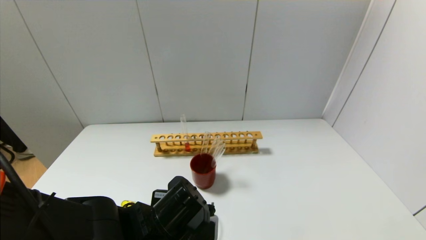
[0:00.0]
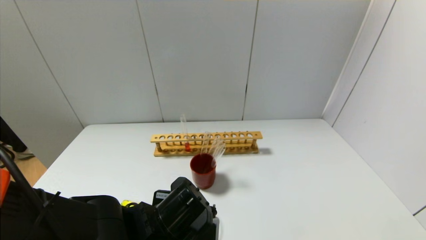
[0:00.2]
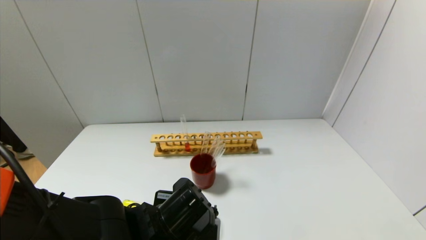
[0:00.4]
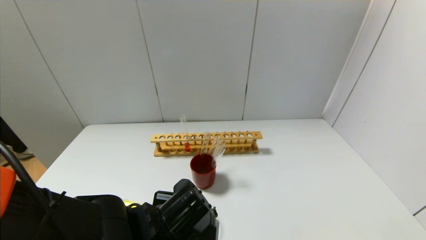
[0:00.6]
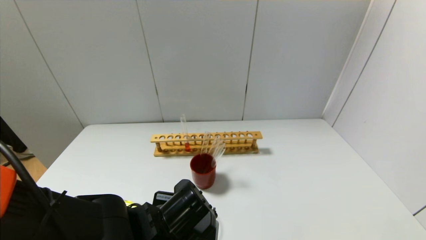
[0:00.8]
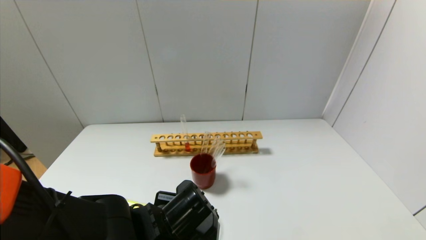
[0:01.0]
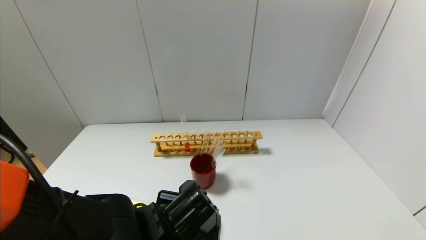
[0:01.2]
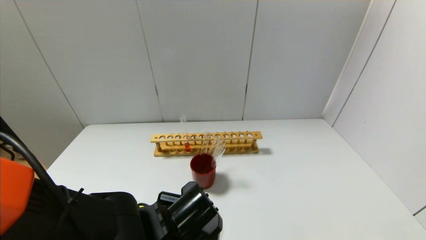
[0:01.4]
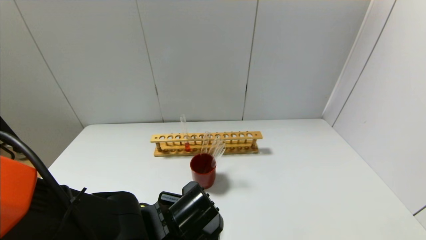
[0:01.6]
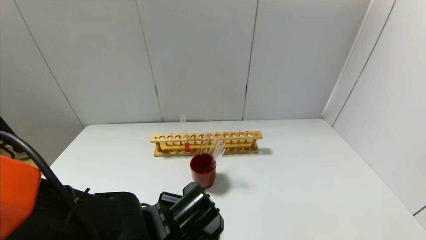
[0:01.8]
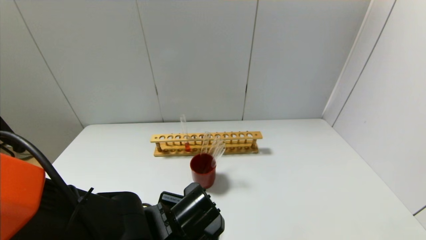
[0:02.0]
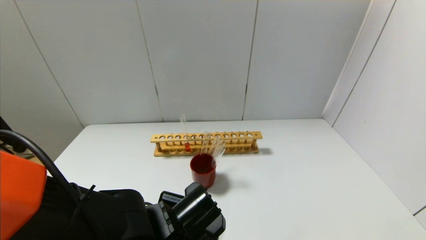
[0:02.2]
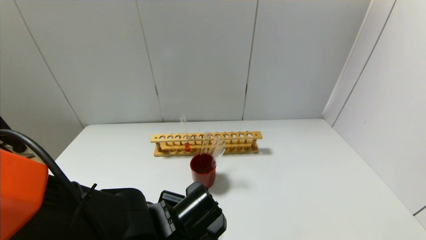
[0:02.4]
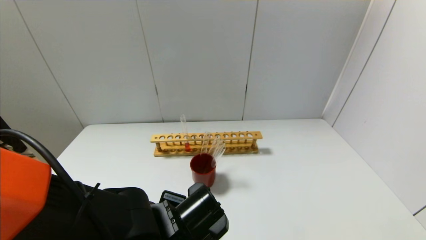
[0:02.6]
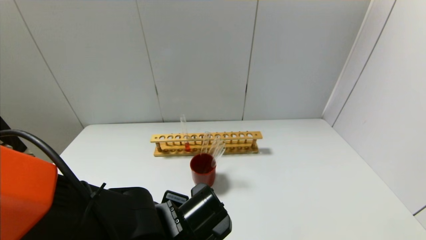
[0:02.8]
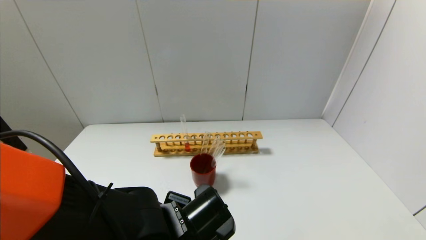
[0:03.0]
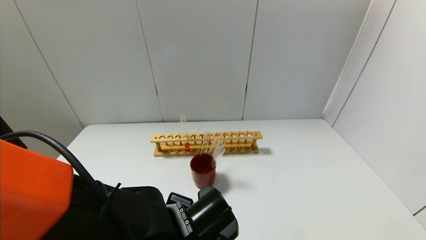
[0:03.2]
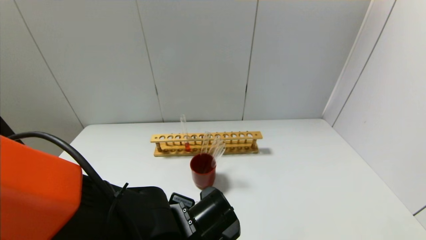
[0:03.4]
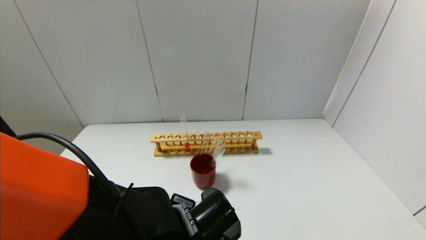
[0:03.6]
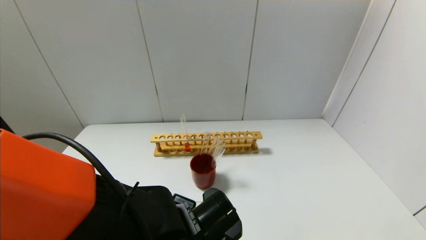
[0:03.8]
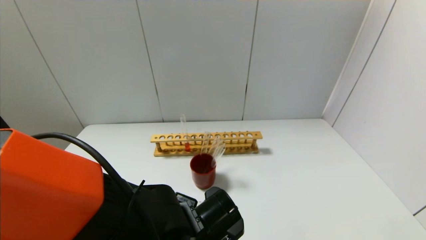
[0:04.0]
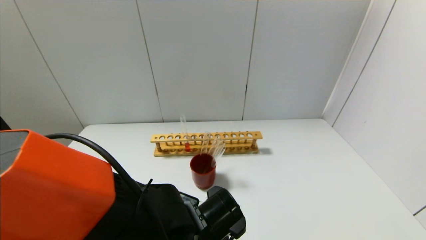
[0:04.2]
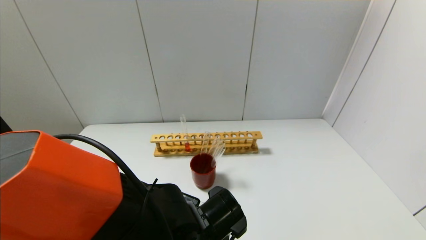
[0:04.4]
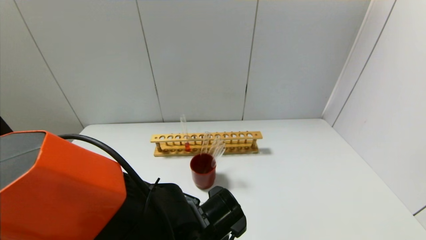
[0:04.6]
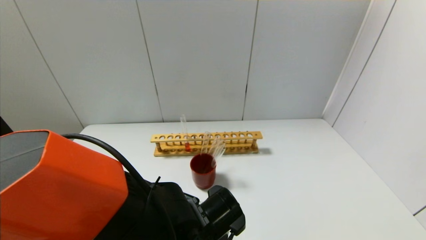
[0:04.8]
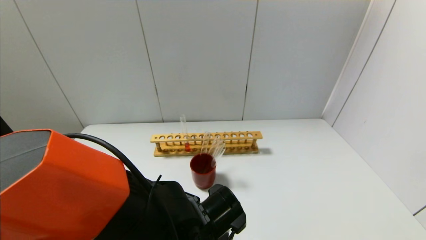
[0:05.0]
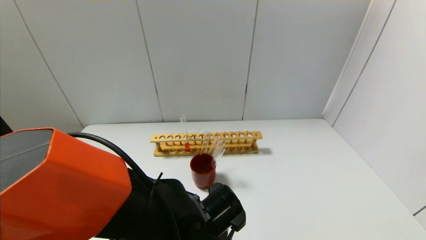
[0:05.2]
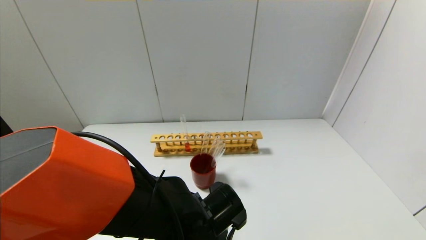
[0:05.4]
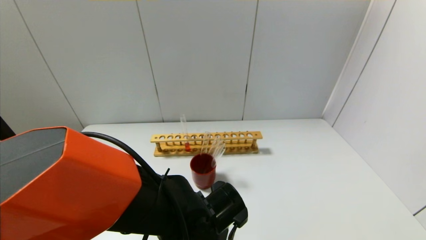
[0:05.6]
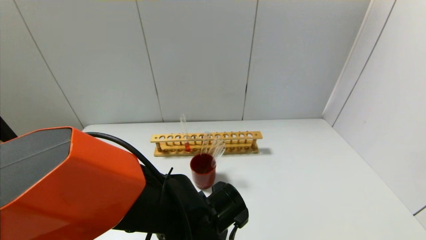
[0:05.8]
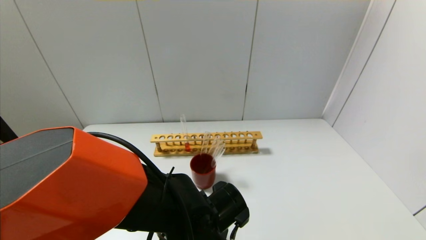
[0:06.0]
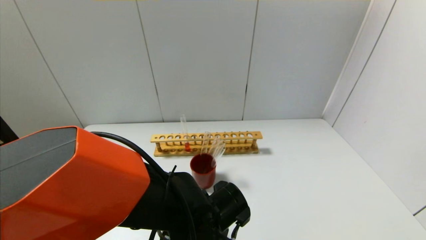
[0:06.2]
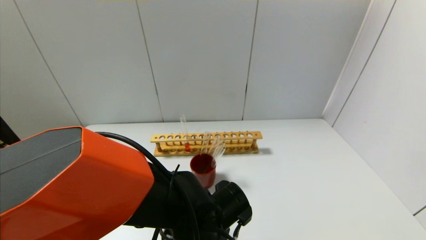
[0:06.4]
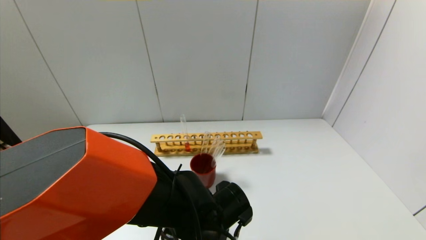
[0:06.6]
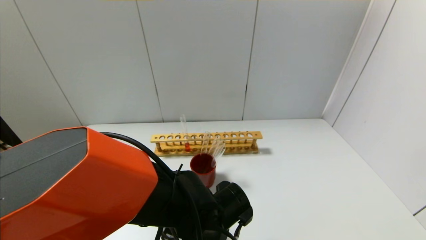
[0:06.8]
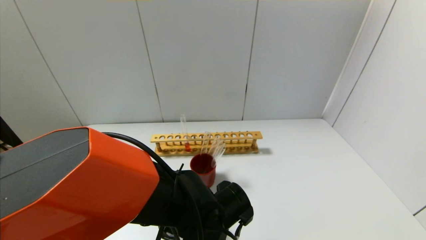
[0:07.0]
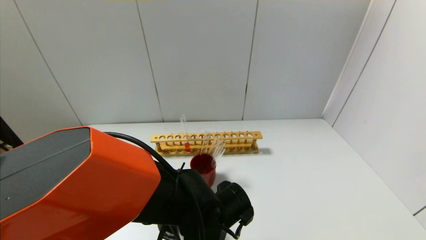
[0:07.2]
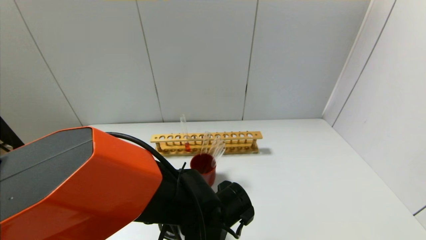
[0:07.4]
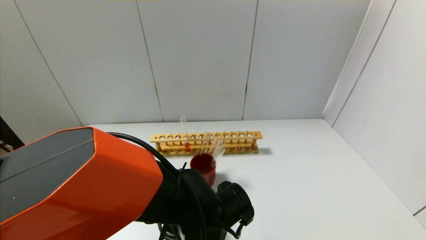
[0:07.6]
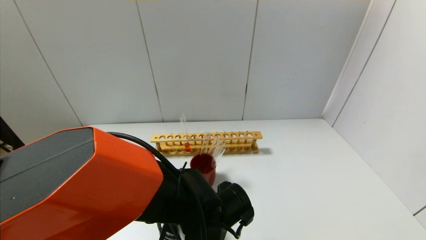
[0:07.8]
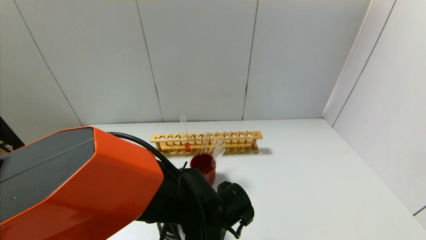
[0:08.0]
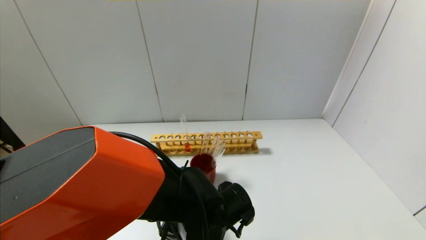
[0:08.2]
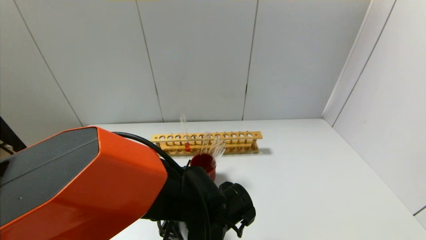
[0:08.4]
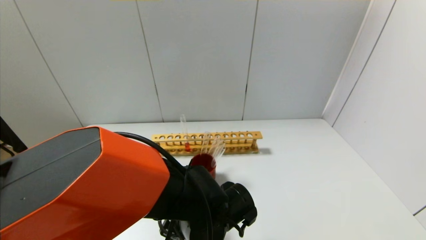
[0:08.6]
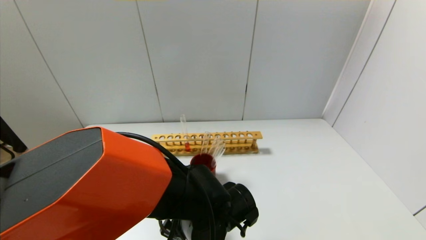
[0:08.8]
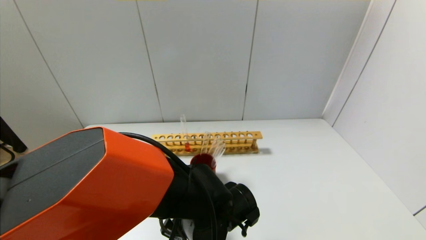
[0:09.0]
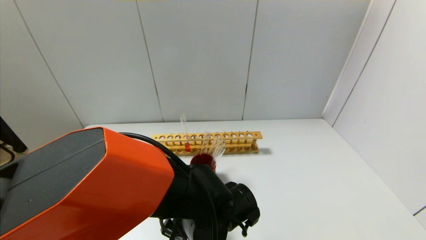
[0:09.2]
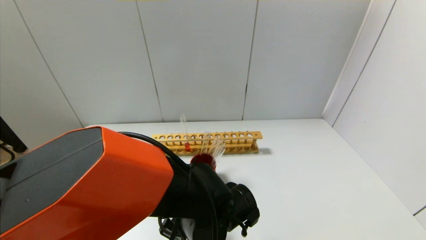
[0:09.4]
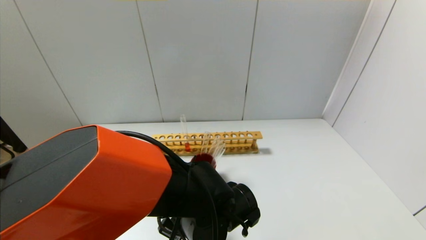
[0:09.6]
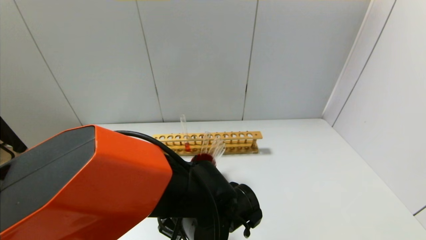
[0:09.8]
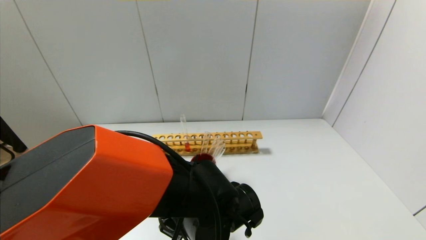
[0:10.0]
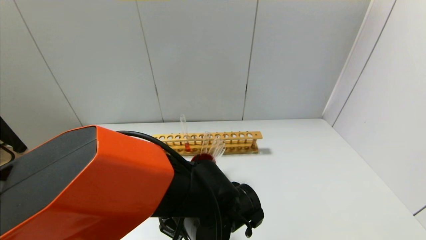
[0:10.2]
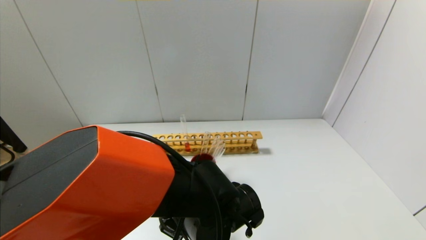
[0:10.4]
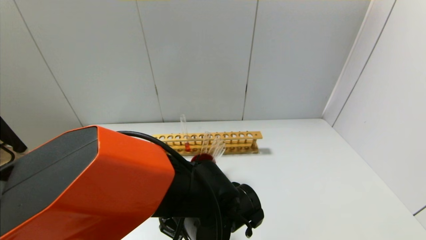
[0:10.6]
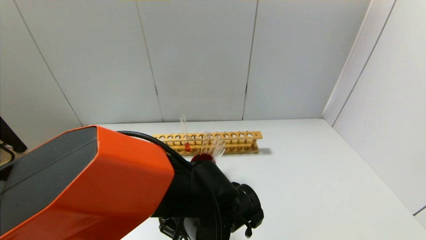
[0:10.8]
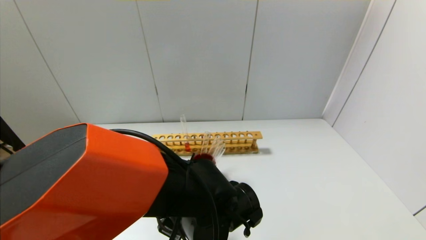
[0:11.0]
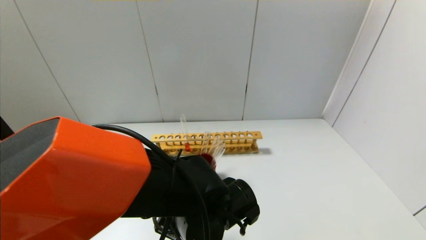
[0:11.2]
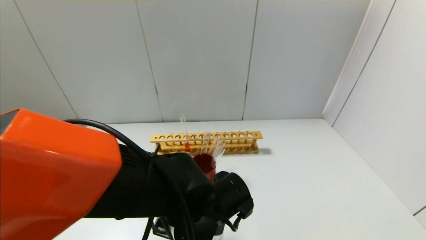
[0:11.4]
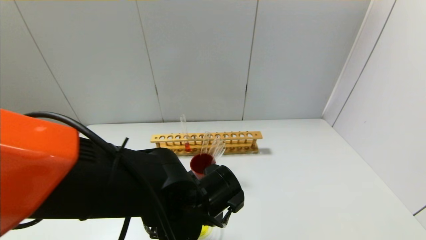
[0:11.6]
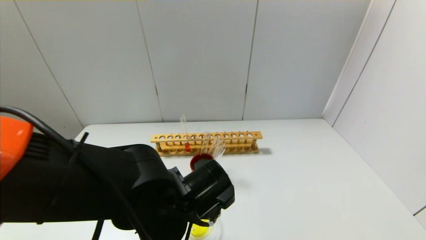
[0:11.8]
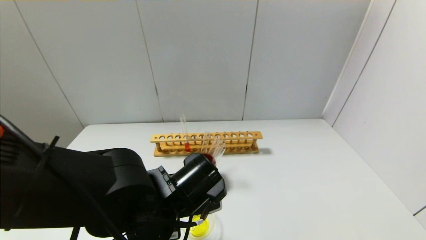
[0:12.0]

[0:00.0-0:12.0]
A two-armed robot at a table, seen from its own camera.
Step, 0:00.0 to 0:11.6: Pour the yellow reagent into the graduated cylinder with the left gripper.
0:00.0 to 0:03.0: The grippers make only small movements.
0:03.0 to 0:07.6: There are only small adjustments of the grippers.
0:07.6 to 0:09.0: The grippers make only small movements.
0:09.0 to 0:10.4: Both grippers stay put.
0:10.4 to 0:12.0: The left gripper travels to the left and upward by some 10 cm.

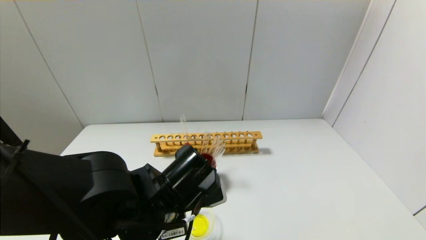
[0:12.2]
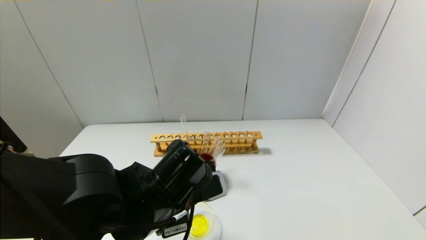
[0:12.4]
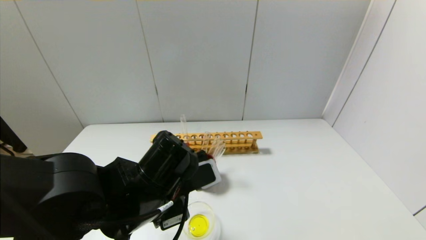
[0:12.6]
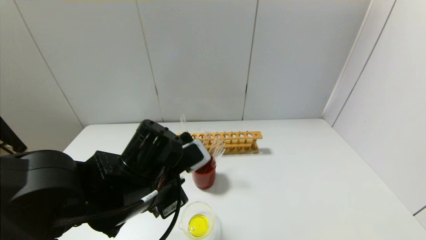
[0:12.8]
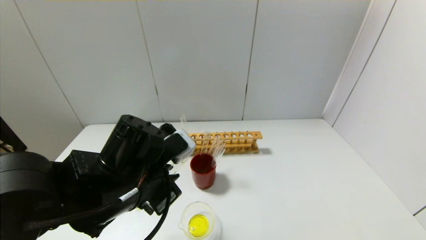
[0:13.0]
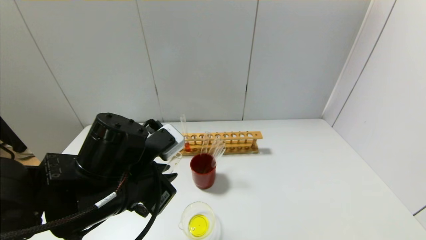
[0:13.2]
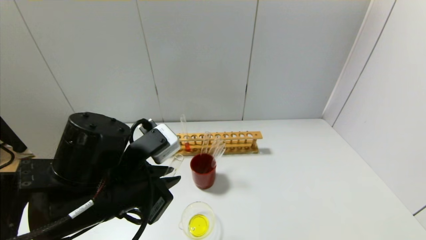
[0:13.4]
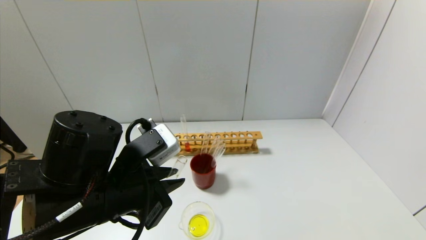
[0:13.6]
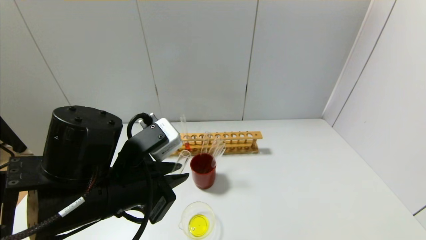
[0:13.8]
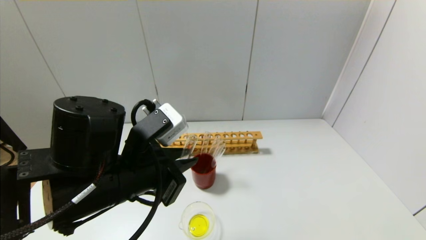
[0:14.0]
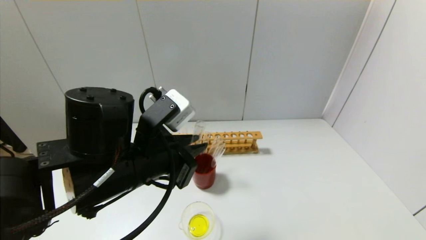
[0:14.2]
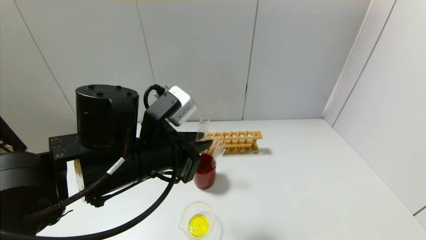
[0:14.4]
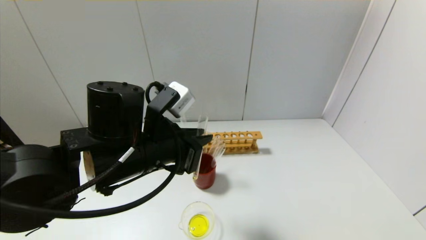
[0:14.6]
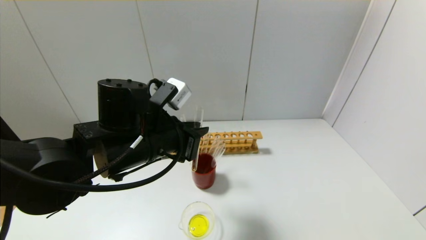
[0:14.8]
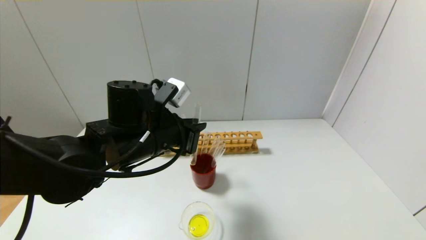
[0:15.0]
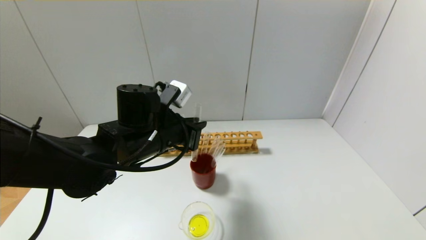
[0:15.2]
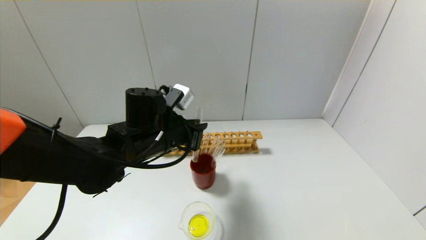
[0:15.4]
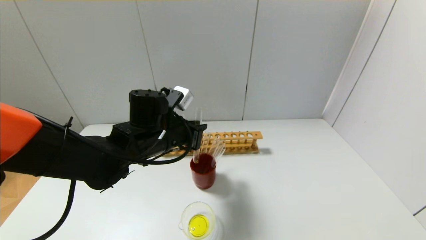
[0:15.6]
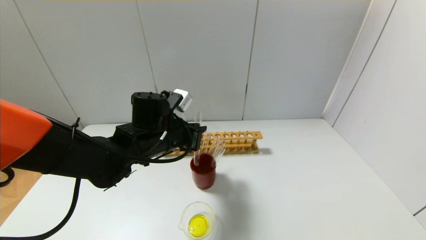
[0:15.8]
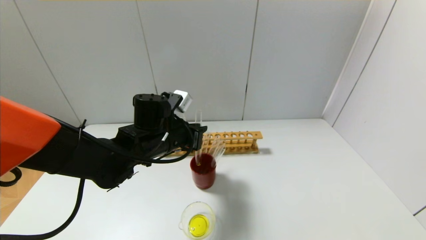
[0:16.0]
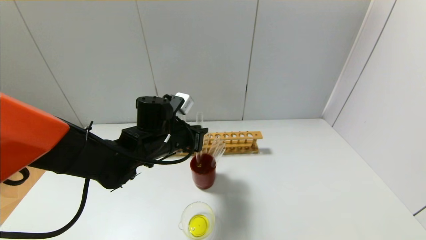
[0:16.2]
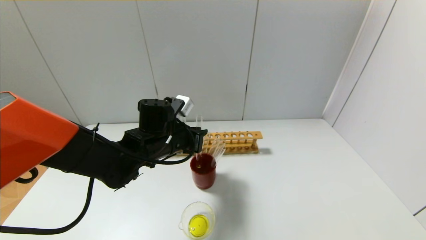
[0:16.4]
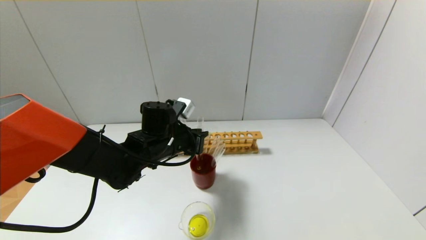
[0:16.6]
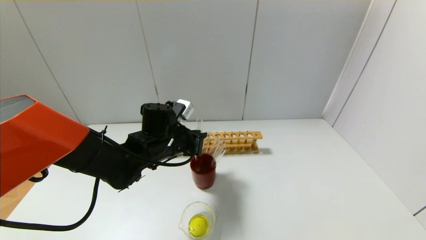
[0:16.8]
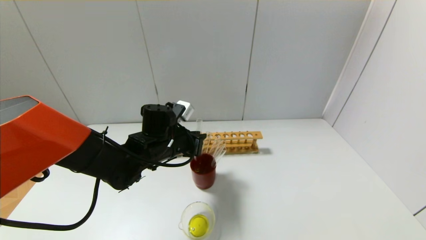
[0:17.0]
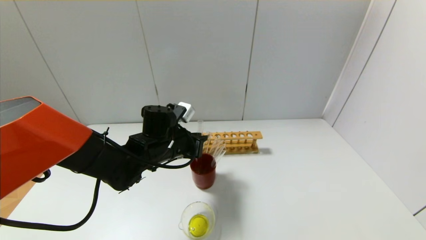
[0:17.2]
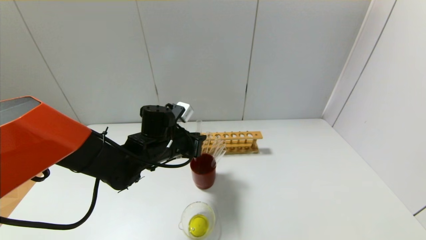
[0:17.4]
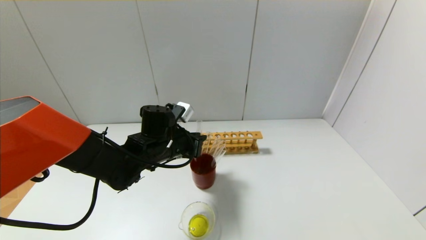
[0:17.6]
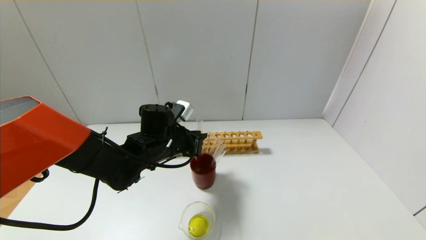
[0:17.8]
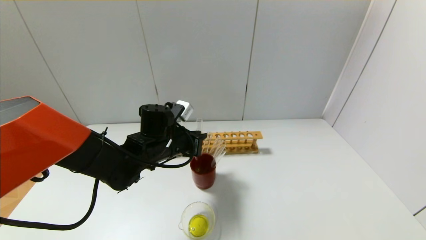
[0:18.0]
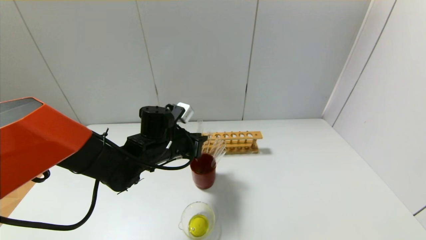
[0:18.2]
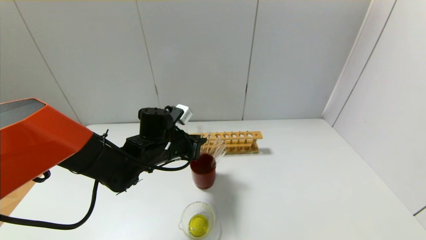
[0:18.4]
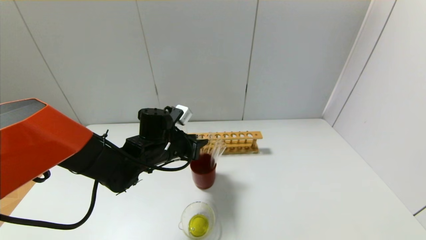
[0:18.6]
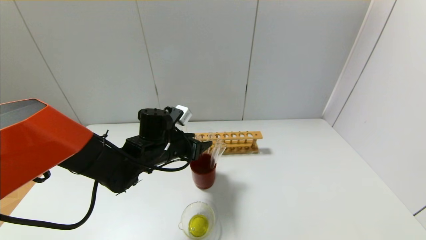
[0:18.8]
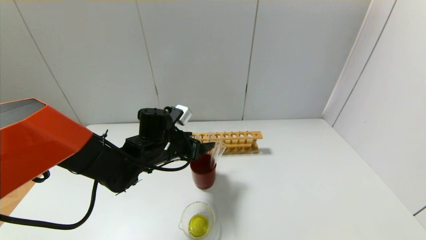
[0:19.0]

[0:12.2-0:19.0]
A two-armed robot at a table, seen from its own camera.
Step, 0:12.2 to 0:18.6: Place the test tube into the brown cup with the left gripper.
0:12.2 to 0:13.6: The left gripper moves to the left and upward, roughly 10 cm.
0:13.6 to 0:15.0: The left gripper moves forward, about 10 cm.
0:15.0 to 0:16.2: The left gripper heads forward, covering roughly 5 cm.
0:16.2 to 0:17.6: The grippers make only small movements.
0:17.6 to 0:19.0: The left gripper opens.
